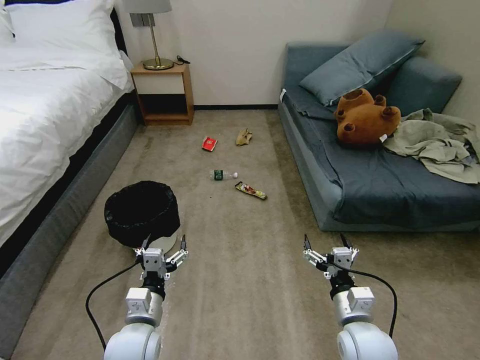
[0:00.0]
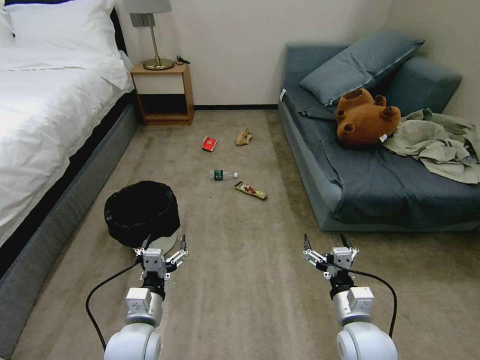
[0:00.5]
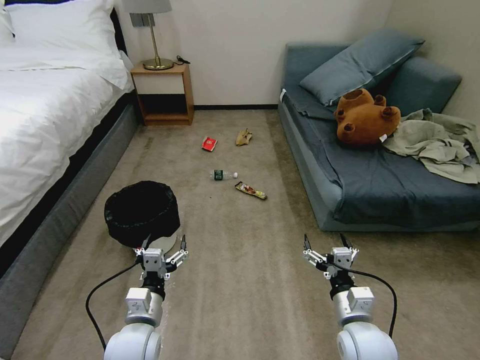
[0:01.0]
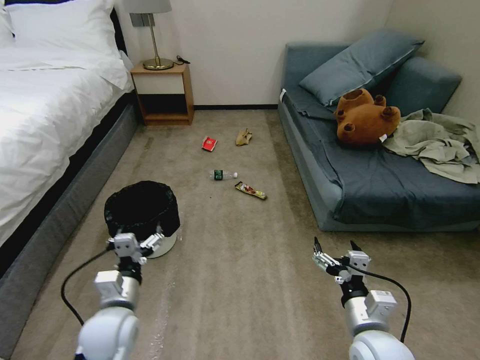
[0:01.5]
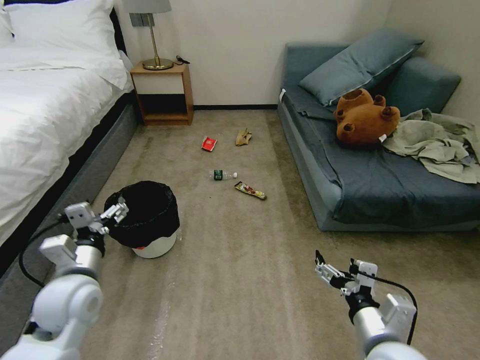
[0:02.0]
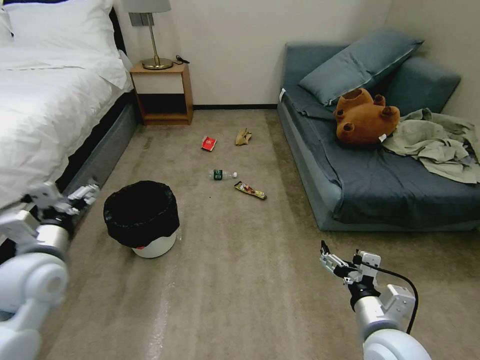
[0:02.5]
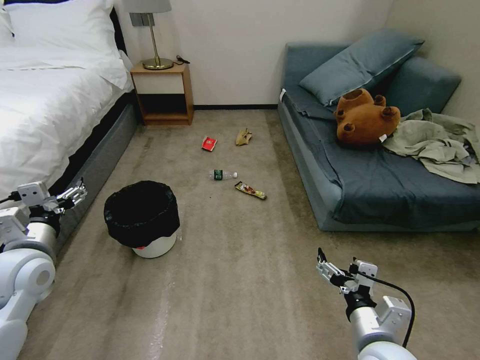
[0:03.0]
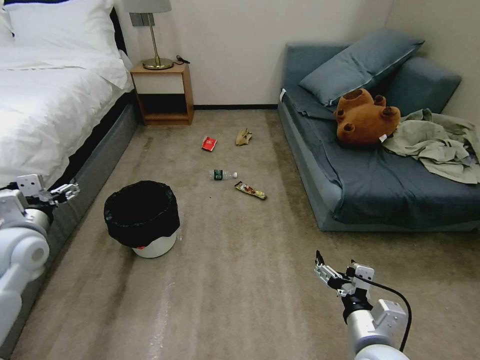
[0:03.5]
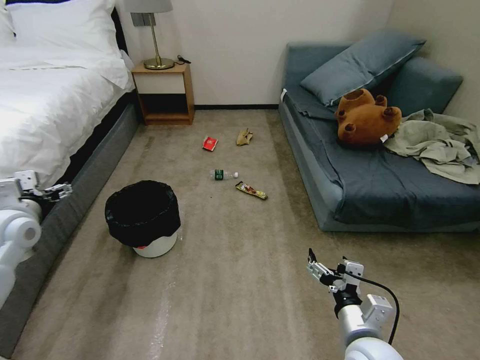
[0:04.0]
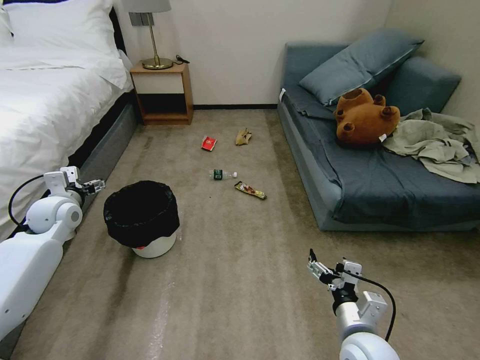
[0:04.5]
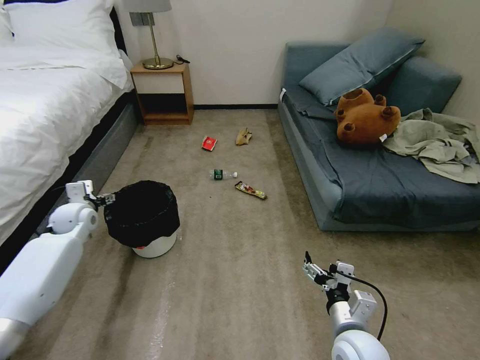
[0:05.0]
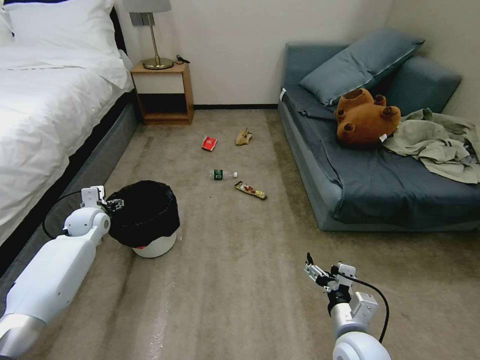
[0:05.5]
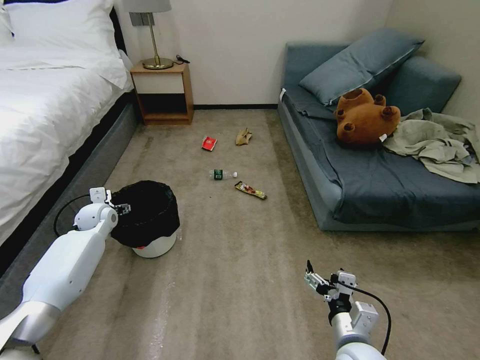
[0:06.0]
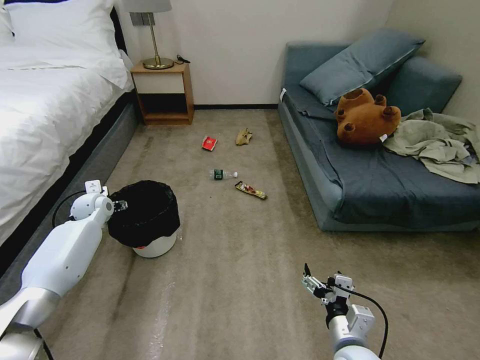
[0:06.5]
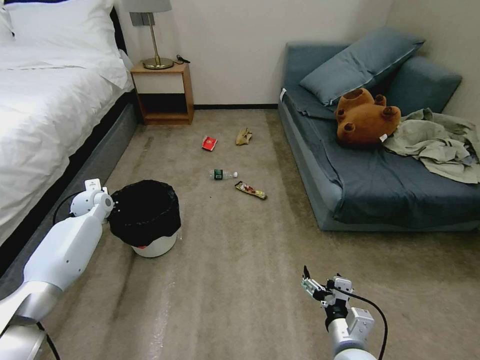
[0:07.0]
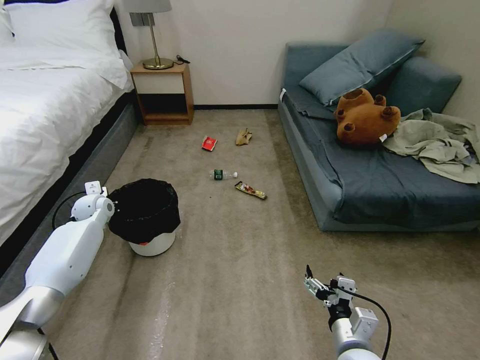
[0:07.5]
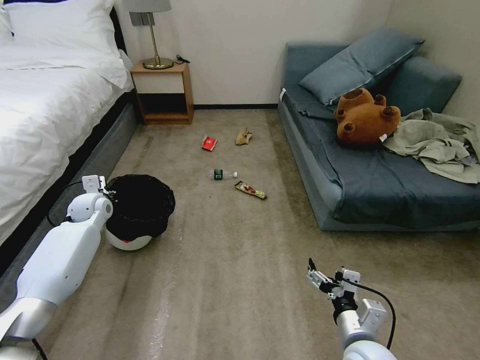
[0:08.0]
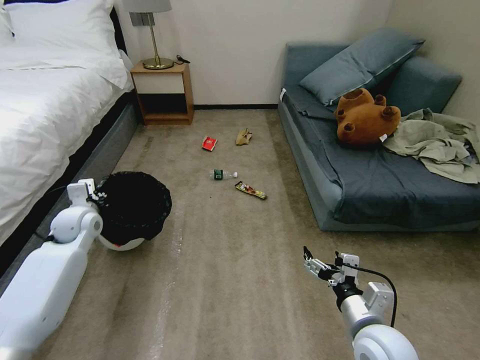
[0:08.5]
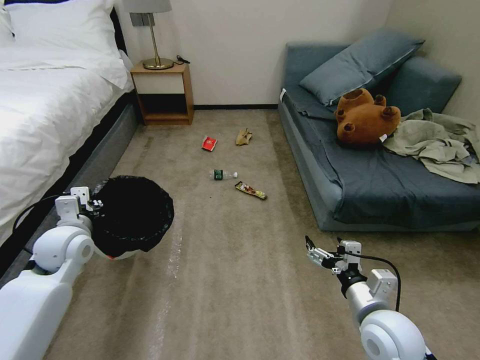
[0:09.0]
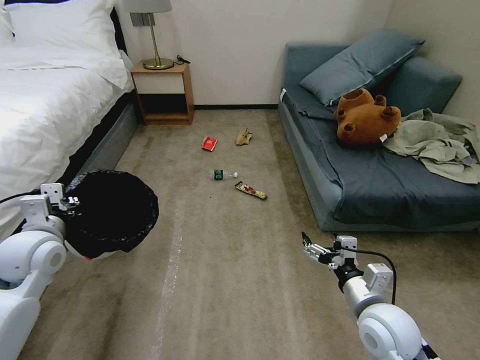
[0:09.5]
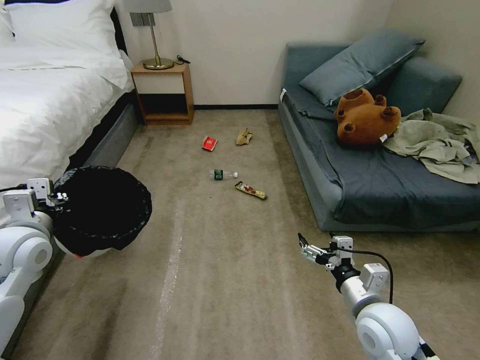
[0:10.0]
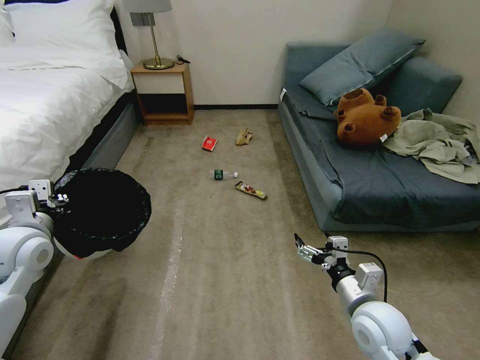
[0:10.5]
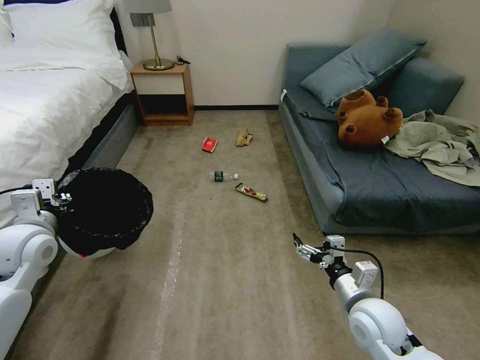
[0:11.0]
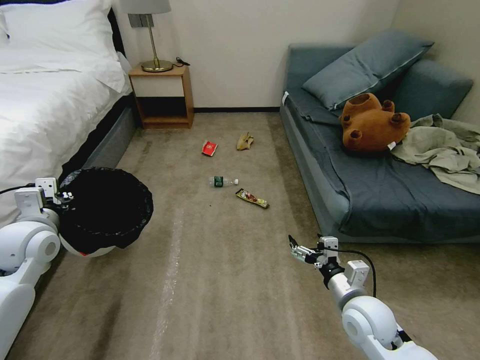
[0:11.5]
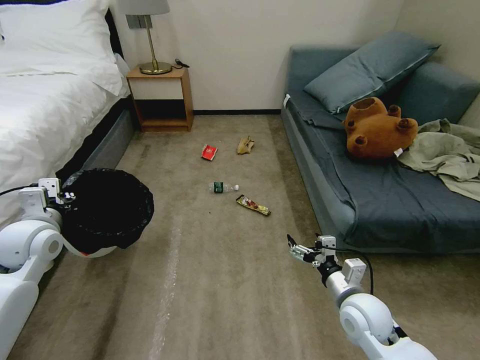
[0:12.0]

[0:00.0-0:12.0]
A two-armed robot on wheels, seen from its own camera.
Task of the whole recording: Pick up the trash bin, then pick up the garbage on the floor and place it into the trash bin.
0:02.0 to 0:04.0: The left gripper heads to the left, forward and upward, covering approximately 20 cm.
0:04.0 to 0:06.0: The left gripper travels forward, downward and to the right by approximately 20 cm.
0:06.0 to 0:08.0: The left gripper closes up.
0:08.0 to 0:10.0: The right gripper moves forward, approximately 5 cm, while the left gripper shifts approximately 20 cm backward and upward.
0:10.0 to 0:12.0: The right gripper shifts by approximately 5 cm.

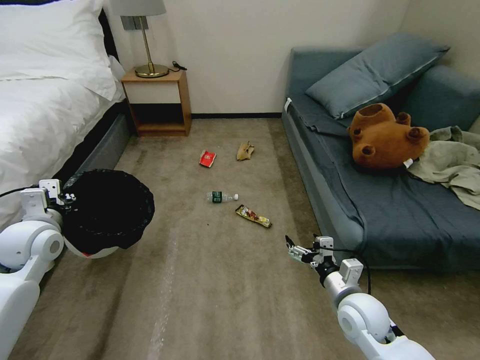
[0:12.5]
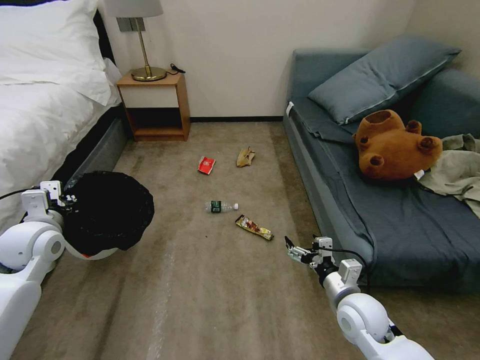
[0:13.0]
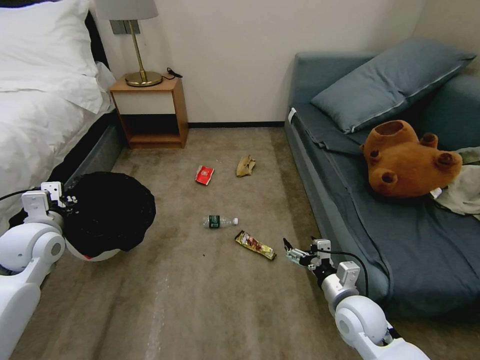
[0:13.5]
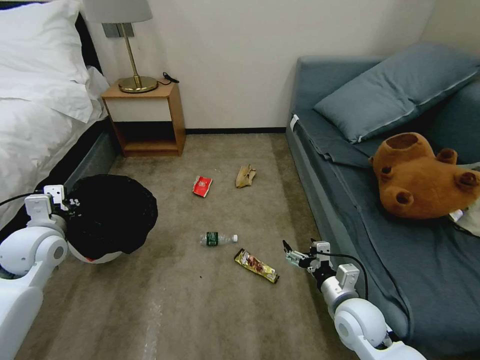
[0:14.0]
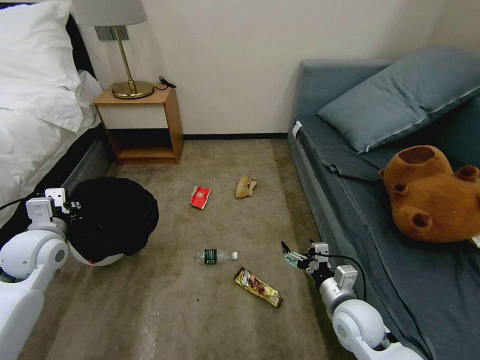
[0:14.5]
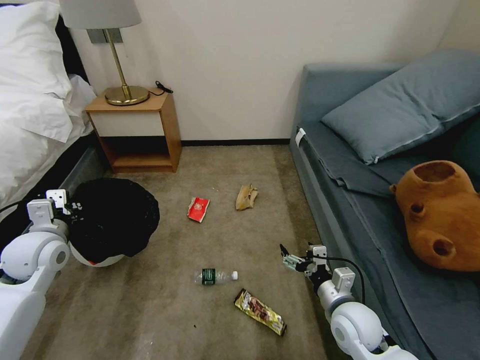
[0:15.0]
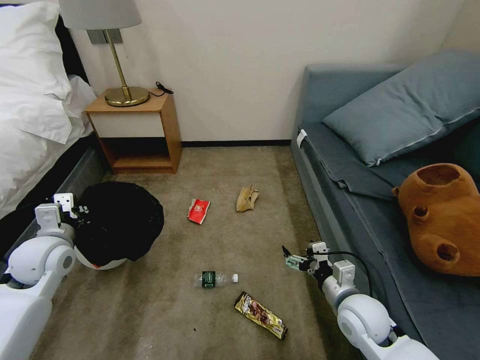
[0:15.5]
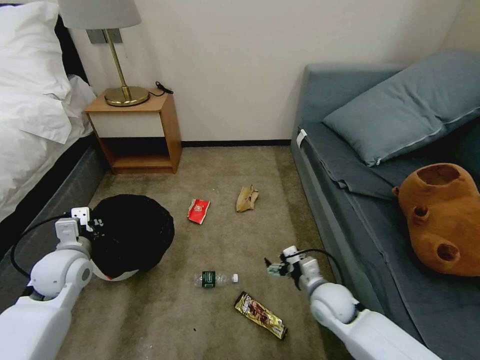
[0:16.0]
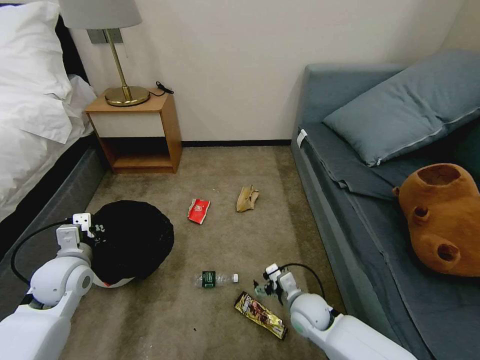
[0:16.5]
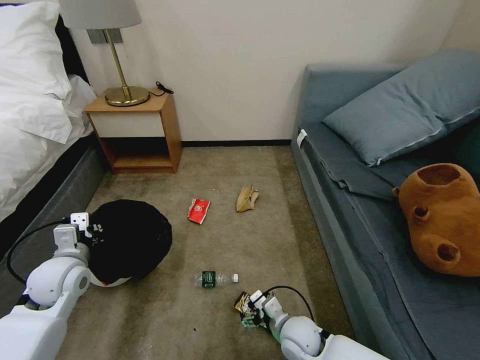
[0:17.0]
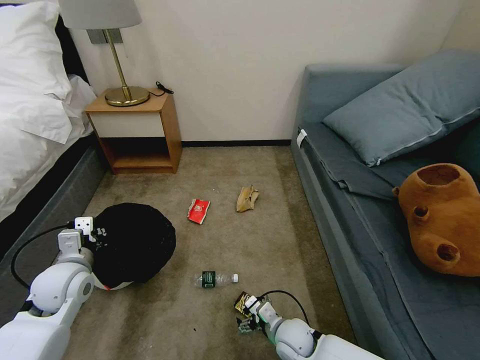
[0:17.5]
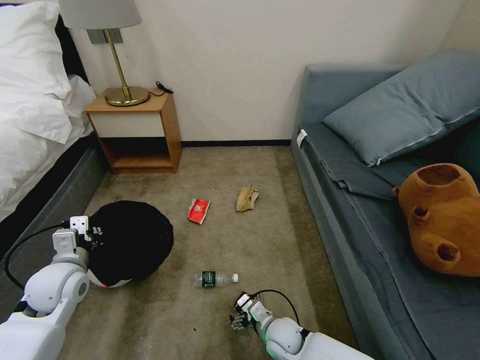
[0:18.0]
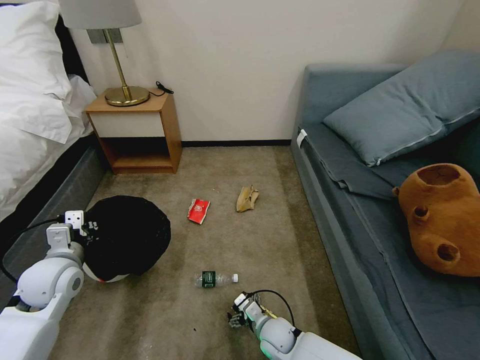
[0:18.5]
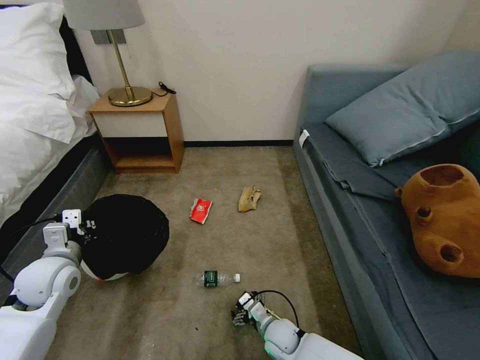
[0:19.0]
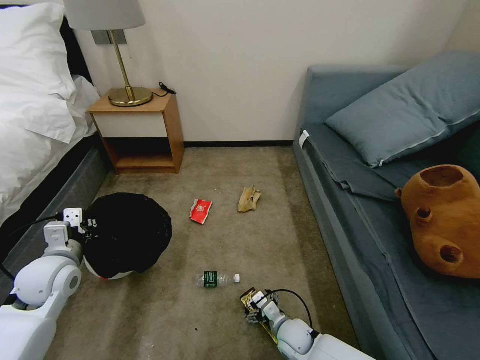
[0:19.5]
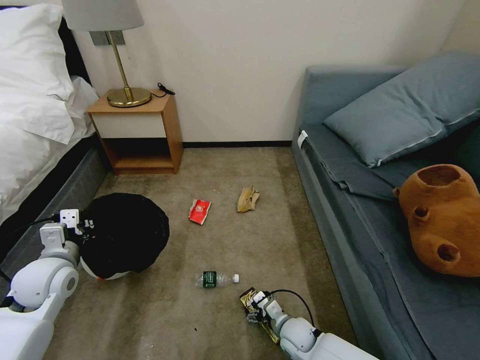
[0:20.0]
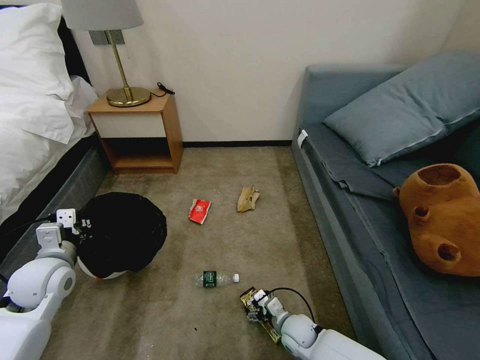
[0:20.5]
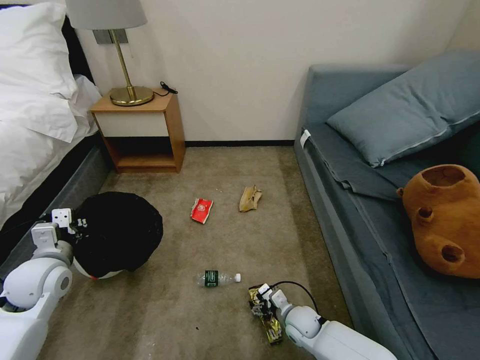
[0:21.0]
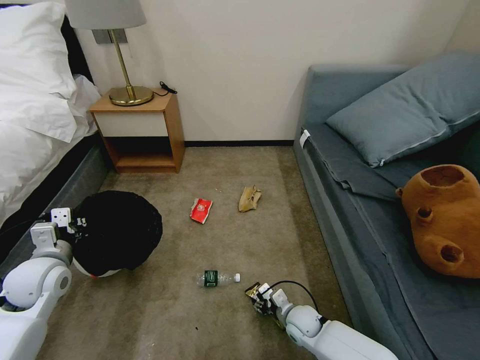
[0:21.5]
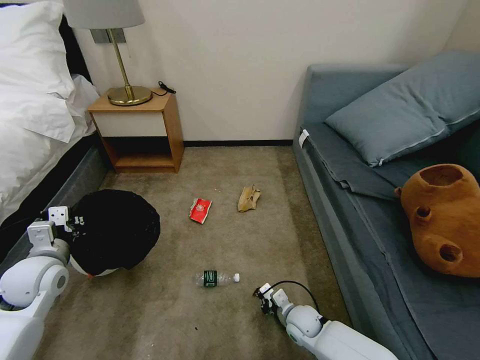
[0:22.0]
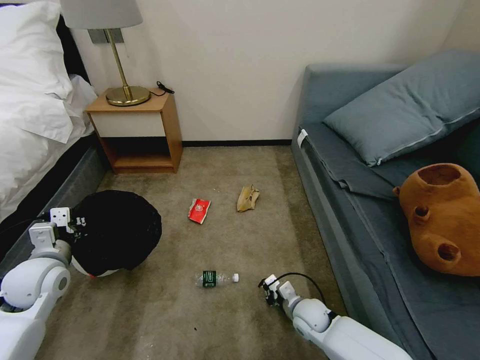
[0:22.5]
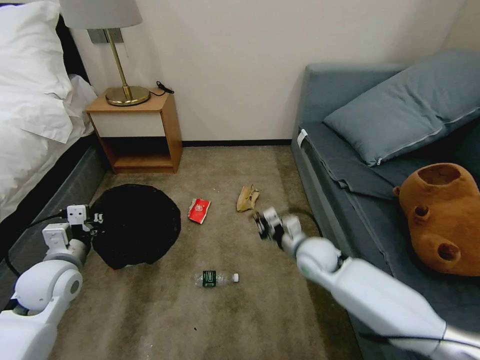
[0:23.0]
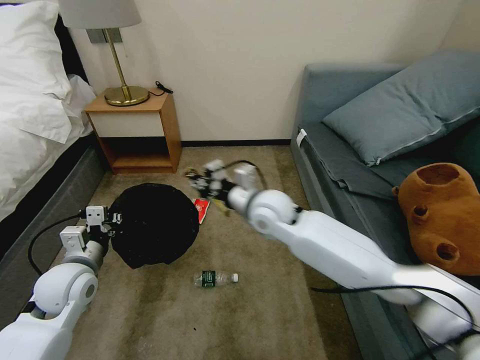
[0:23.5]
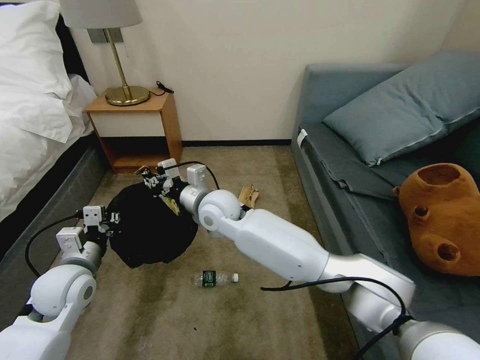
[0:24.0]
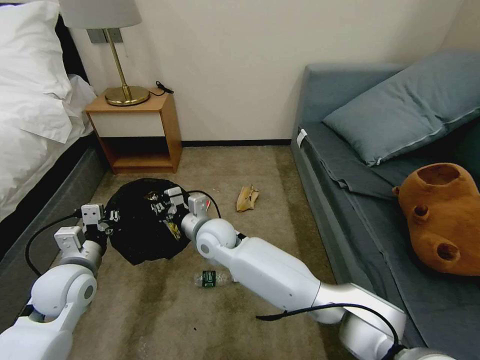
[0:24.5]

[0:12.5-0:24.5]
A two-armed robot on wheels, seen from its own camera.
Task of the whole recording: Pick up the trash bin, then pick up the garbage on the floor and place it into the trash bin.
0:14.5 to 0:16.5: The left gripper travels downward by some 5 cm, while the right gripper is displaced downward and to the left by some 10 cm.
0:16.5 to 0:18.5: The right gripper travels downward and to the left by approximately 10 cm.
0:18.5 to 0:20.5: The right gripper is displaced to the right by some 5 cm.
0:20.5 to 0:22.5: The right gripper shifts by about 5 cm, and closes up.
0:22.5 to 0:24.5: The left gripper heads to the right, covering about 5 cm. Meanwhile the right gripper travels to the left, upward and forward by some 35 cm.

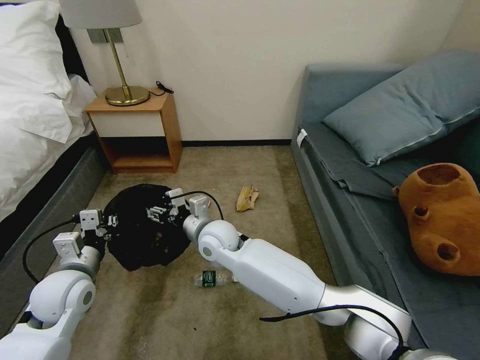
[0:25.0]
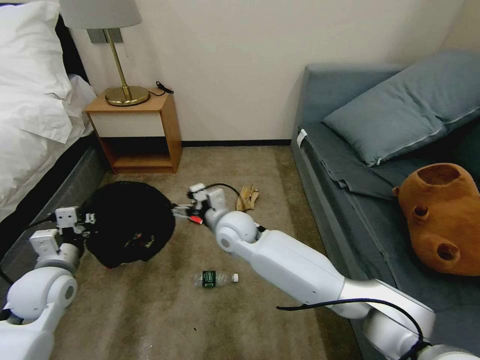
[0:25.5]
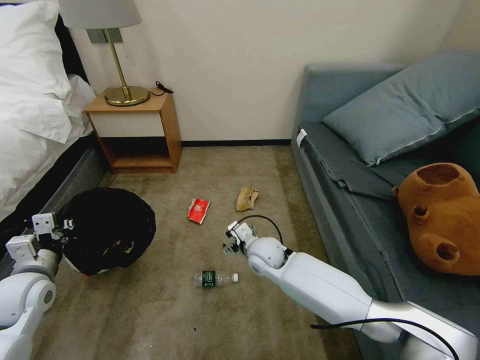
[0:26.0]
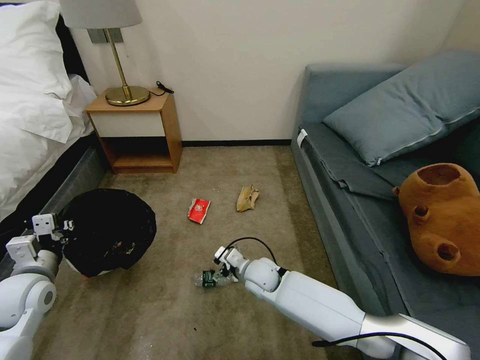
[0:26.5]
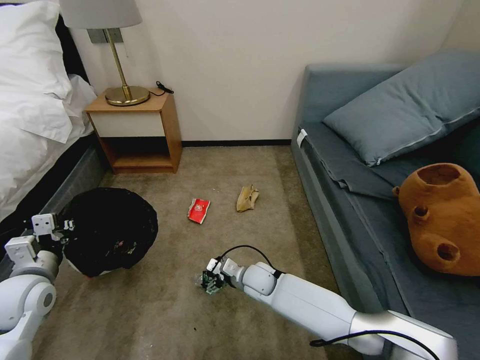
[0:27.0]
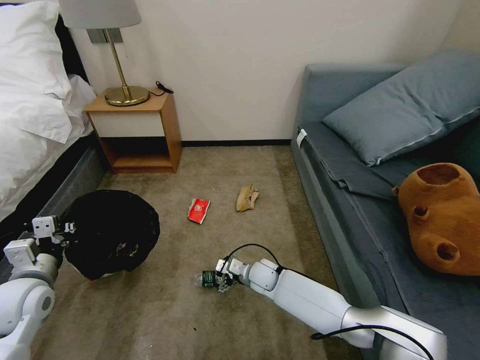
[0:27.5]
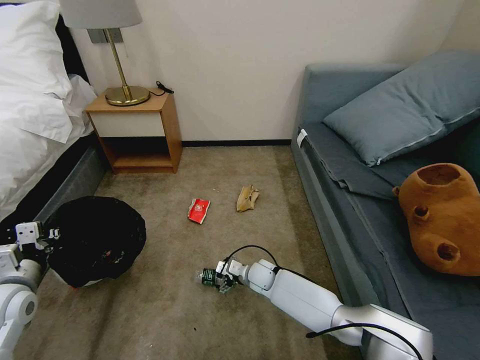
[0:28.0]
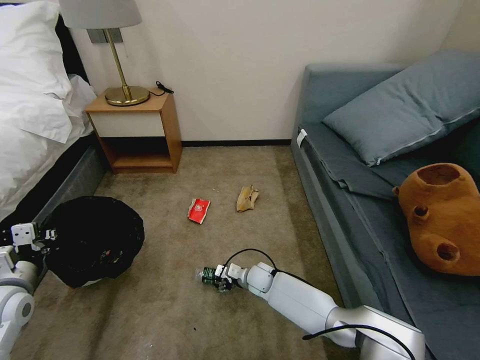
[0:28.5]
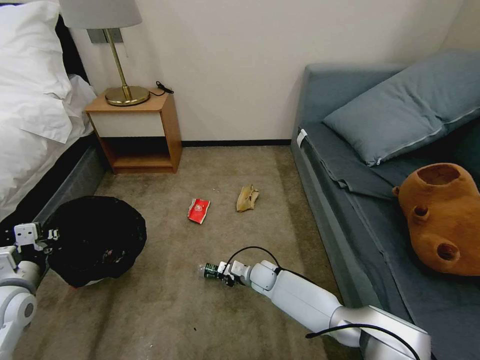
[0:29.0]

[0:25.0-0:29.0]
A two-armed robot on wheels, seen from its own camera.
Task of the whole recording: Pick up the trash bin, then pick up the garbage on the floor and place it into the trash bin.
0:25.0 to 0:27.0: The right gripper shifts some 20 cm downward and to the right; the left gripper heads to the left, covering some 5 cm.
0:27.0 to 0:29.0: The right gripper is displaced downward by roughly 5 cm, and closes its fingers.
